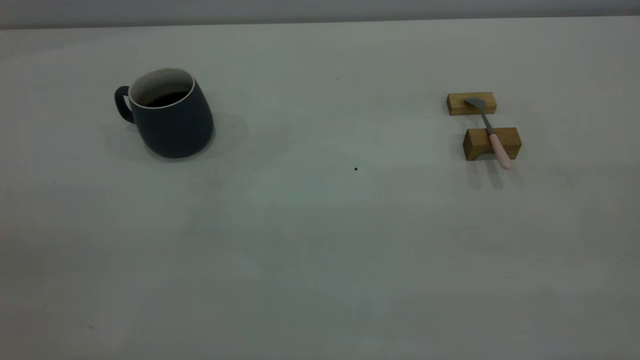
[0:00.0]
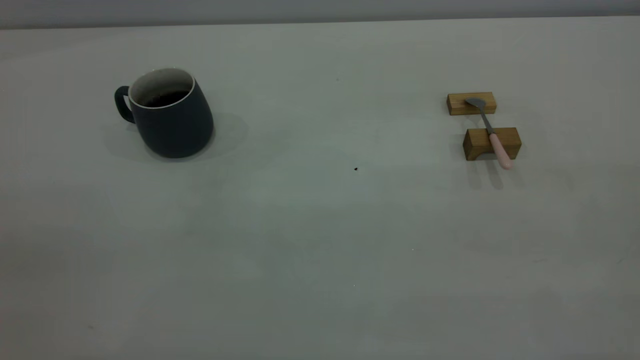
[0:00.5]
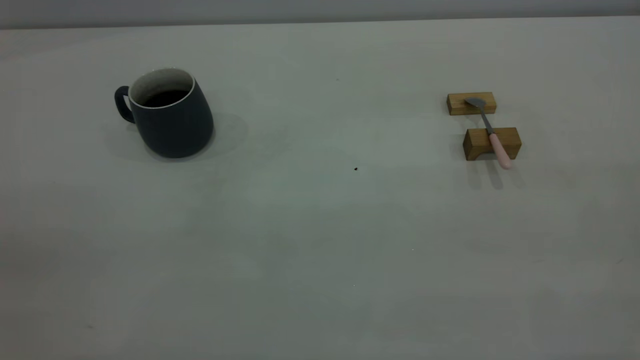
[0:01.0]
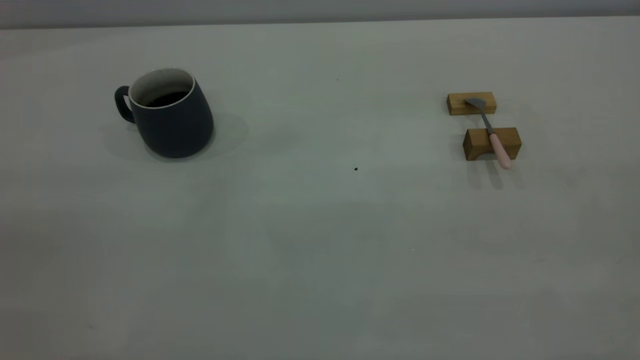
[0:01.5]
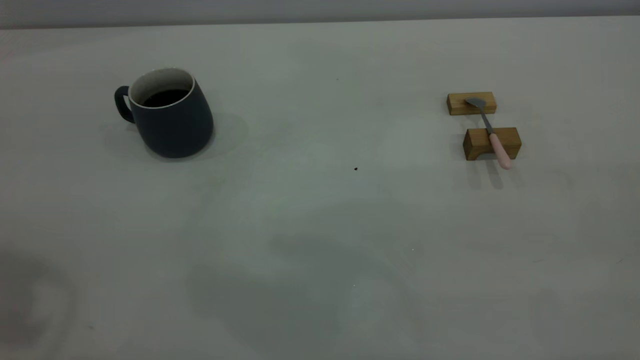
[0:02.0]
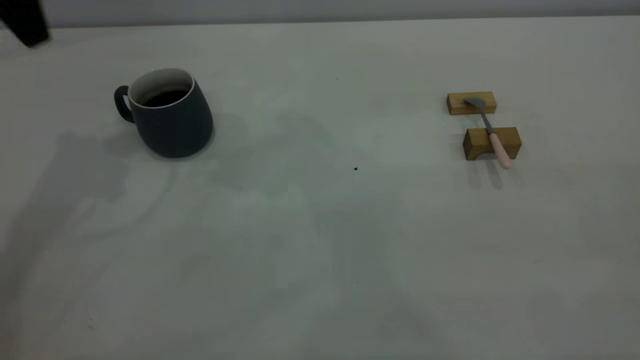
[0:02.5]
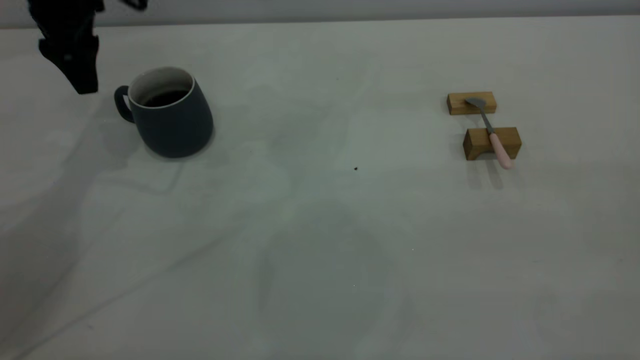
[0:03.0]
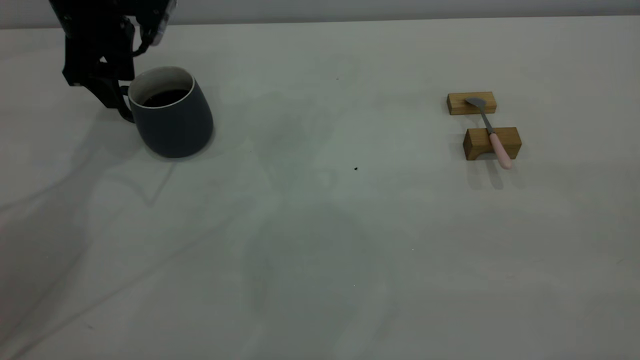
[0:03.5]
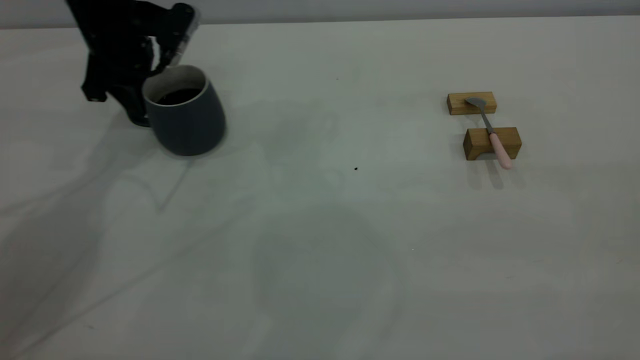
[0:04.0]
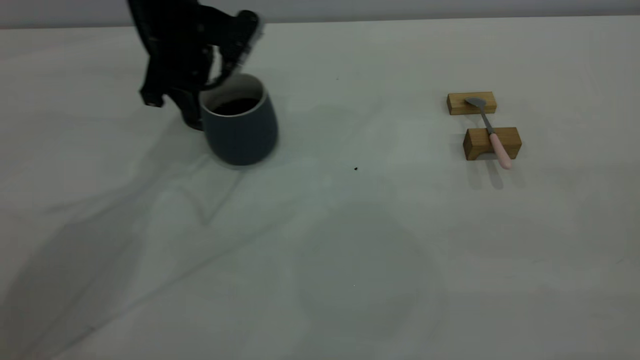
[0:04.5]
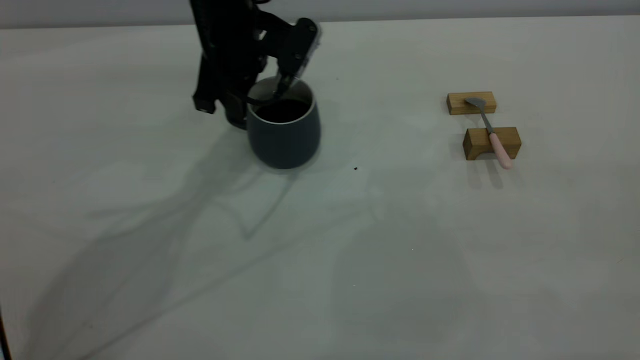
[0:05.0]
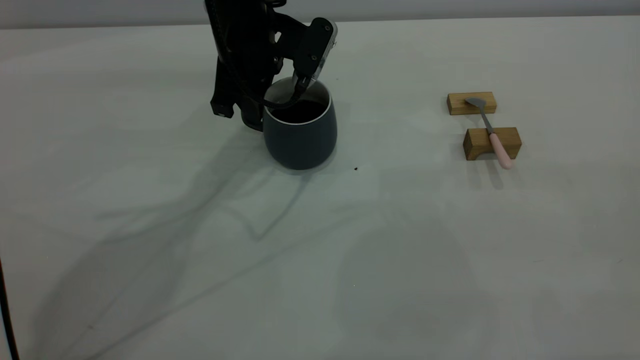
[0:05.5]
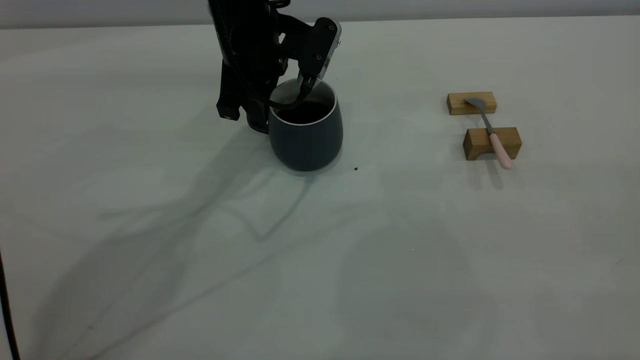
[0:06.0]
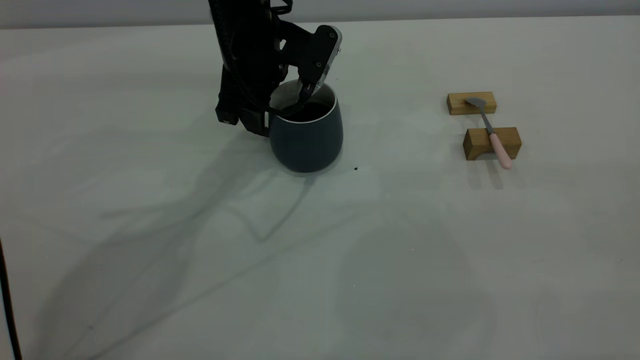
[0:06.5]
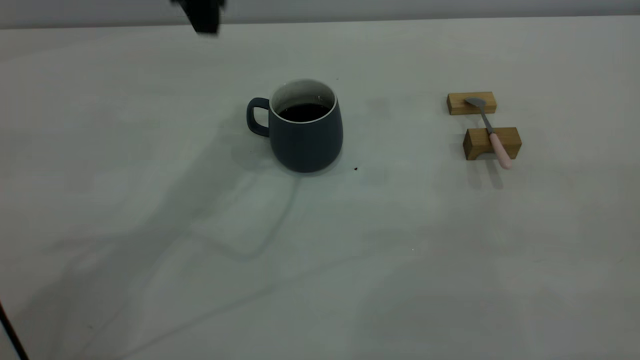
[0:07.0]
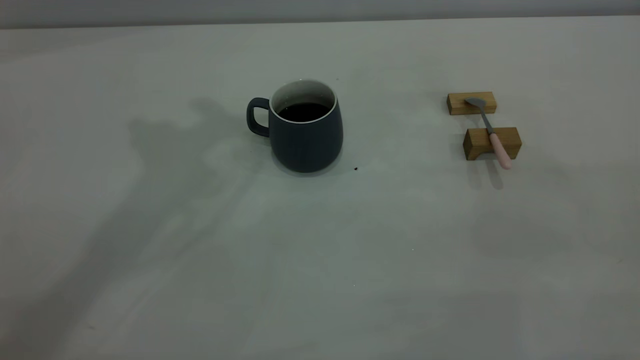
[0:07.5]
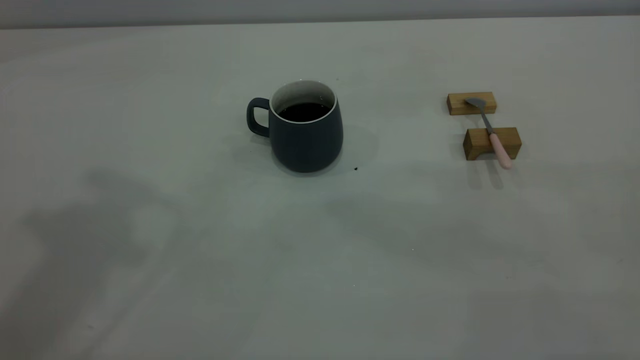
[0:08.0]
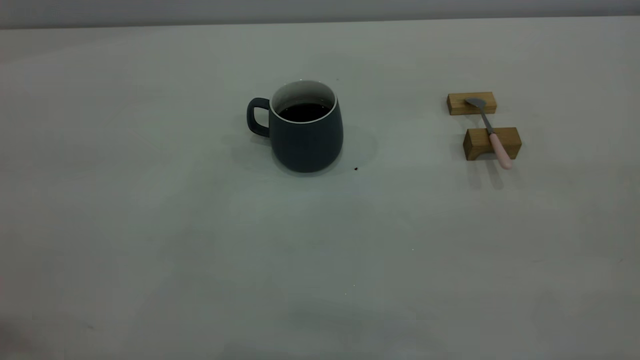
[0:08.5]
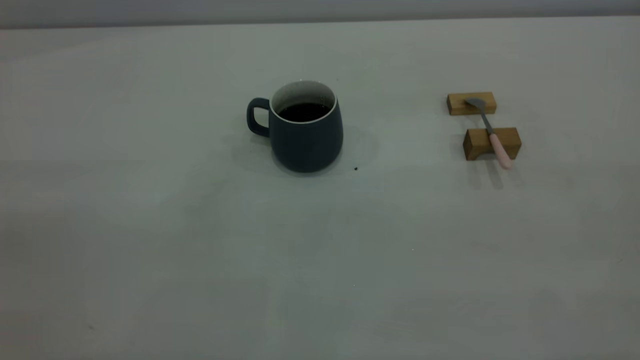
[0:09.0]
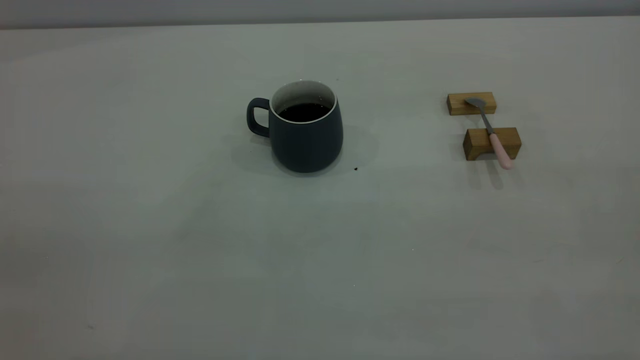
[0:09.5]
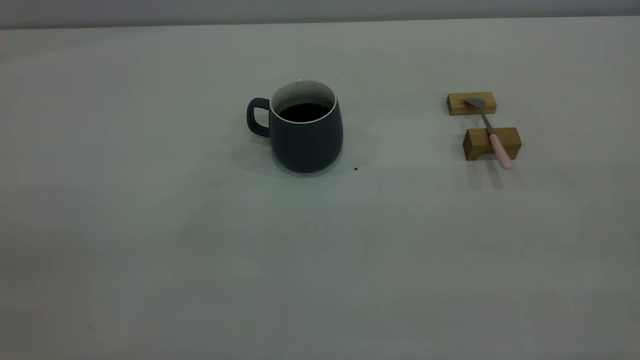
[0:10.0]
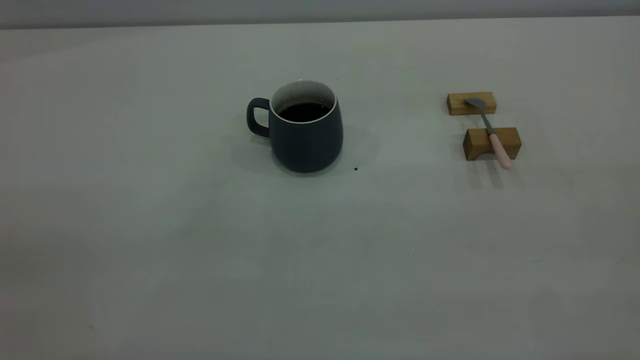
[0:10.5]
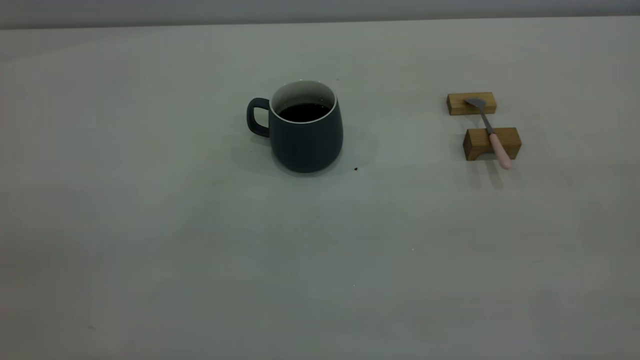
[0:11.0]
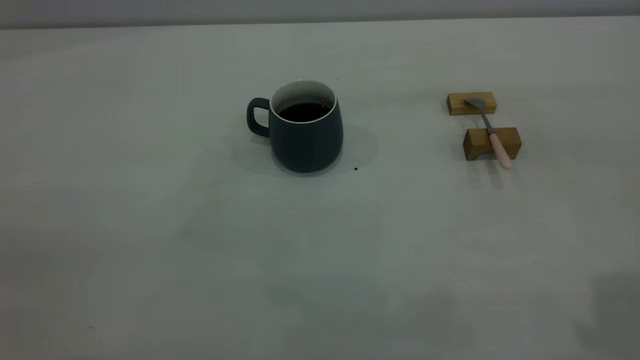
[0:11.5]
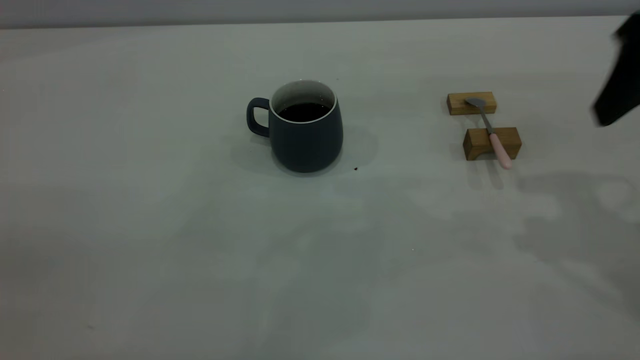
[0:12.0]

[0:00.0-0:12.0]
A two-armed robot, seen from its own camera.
Step, 0:00.0 to 0:06.5: Move the cup with coffee to the center of view.
0:02.0 to 0:04.0: The left gripper travels forward and downward by approximately 40 cm, and closes its fingers.
0:04.0 to 0:06.0: The left gripper goes some 15 cm to the right.
0:06.0 to 0:08.0: The left gripper is displaced upward and backward by about 40 cm, and opens up.
0:10.0 to 0:12.0: The right gripper shifts approximately 30 cm forward and downward, and opens.

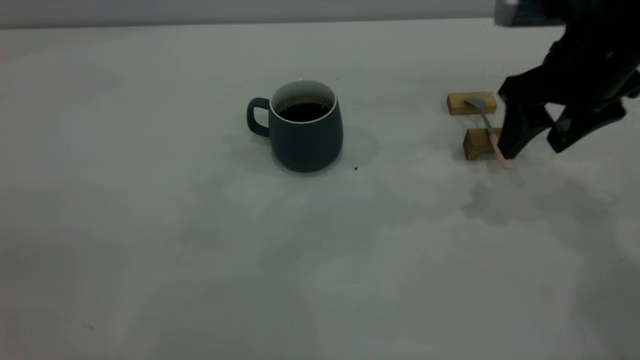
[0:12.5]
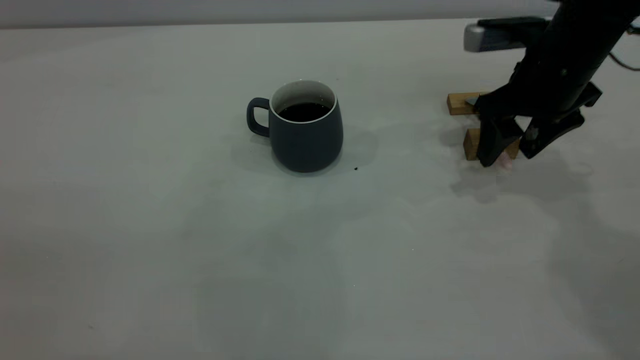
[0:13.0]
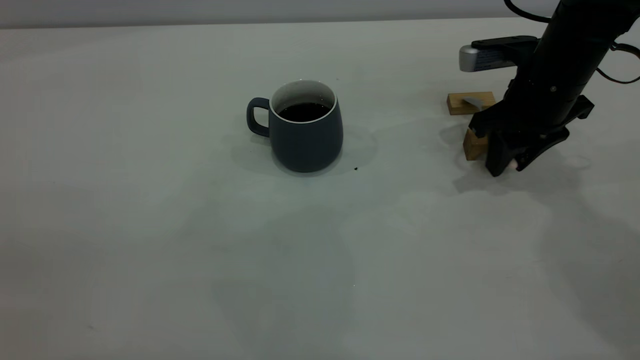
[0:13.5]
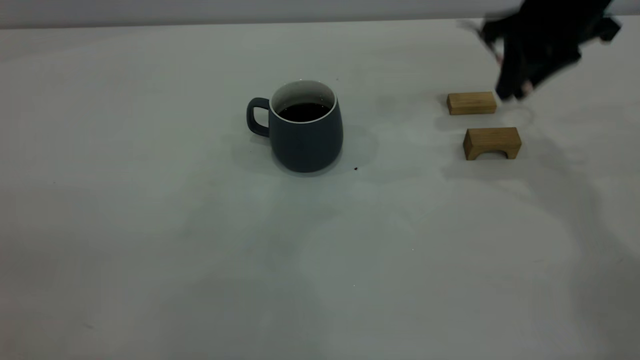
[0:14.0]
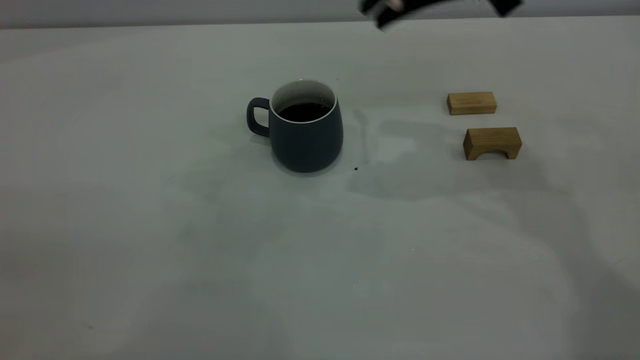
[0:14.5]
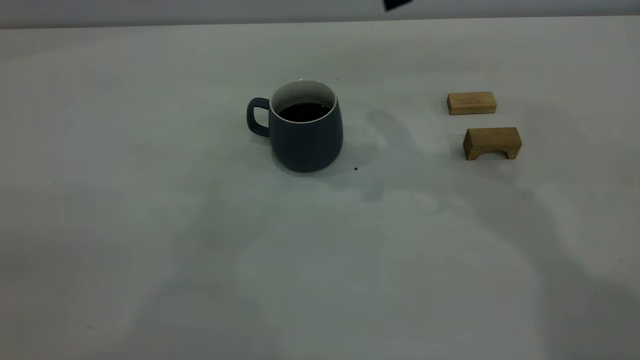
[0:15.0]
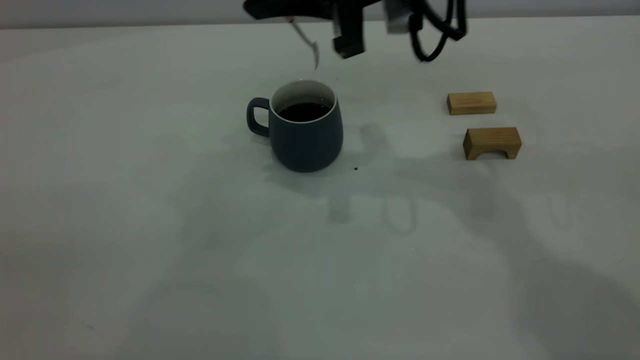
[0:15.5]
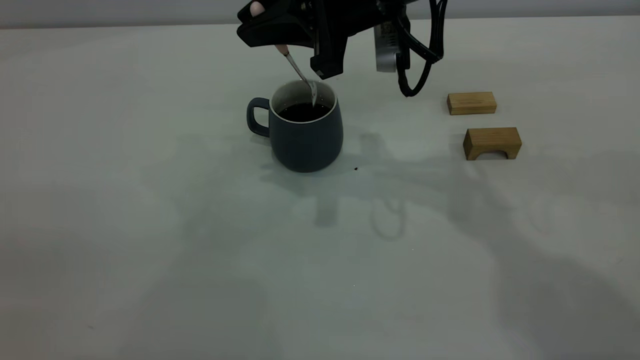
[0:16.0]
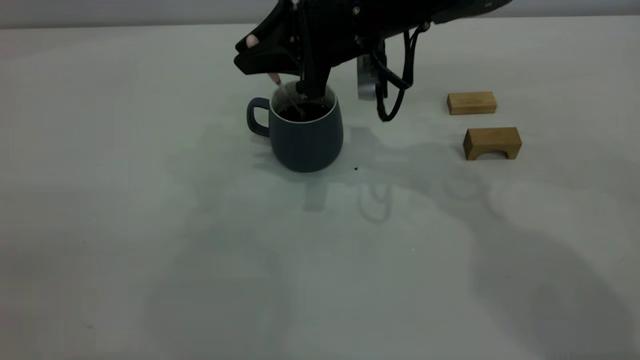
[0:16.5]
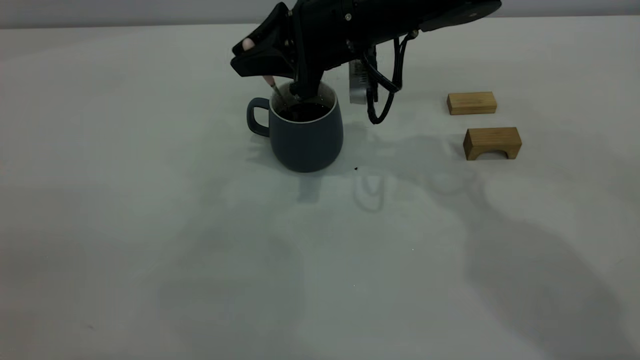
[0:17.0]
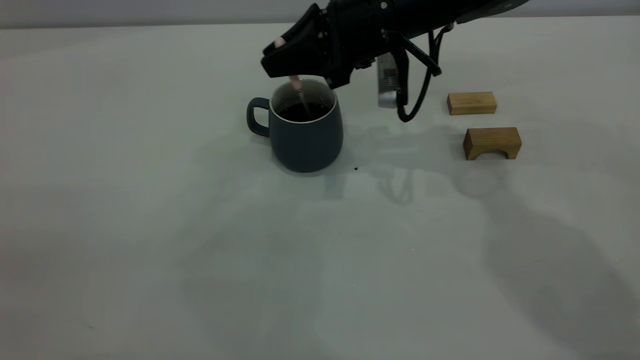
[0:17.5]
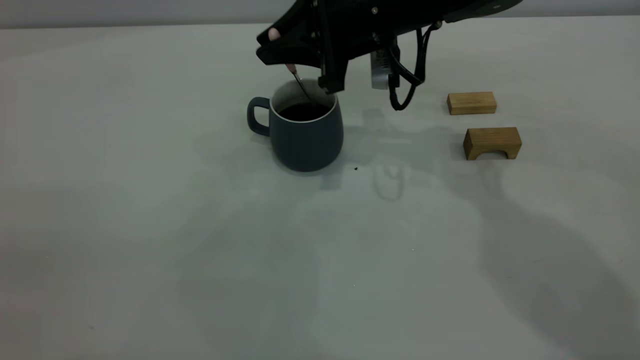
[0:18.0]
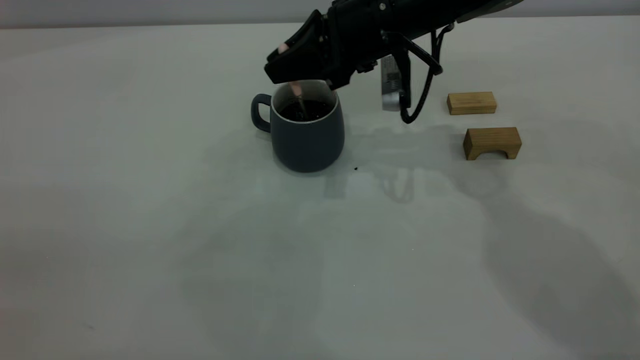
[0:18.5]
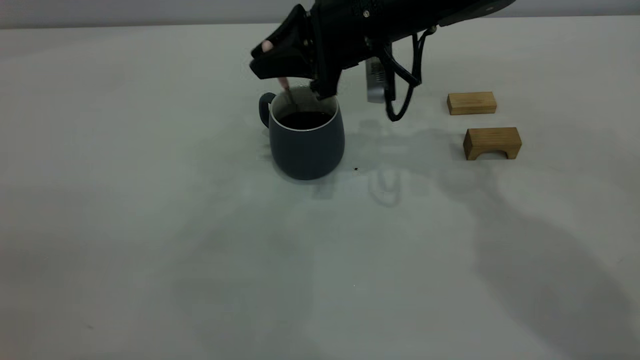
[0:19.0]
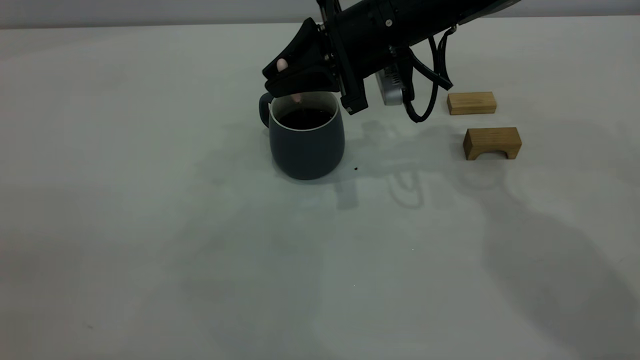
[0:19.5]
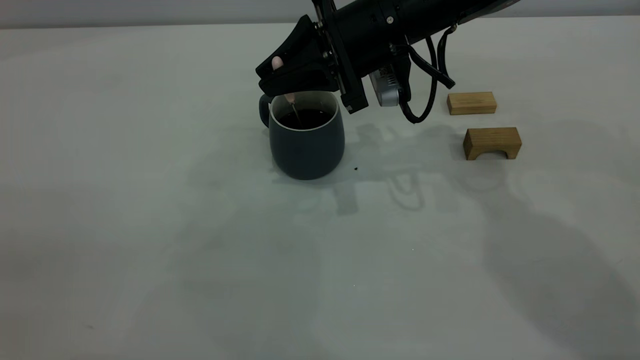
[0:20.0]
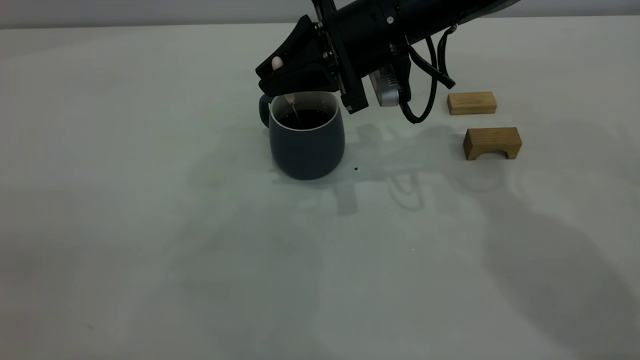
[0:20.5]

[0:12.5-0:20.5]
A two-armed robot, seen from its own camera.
0:12.5 to 0:14.5: The right gripper travels upward and to the left by some 15 cm, and closes.
0:14.5 to 0:16.5: The right gripper shifts about 15 cm downward and to the left.
0:16.5 to 0:18.5: The grippers stay close to where they were, moving slightly.
